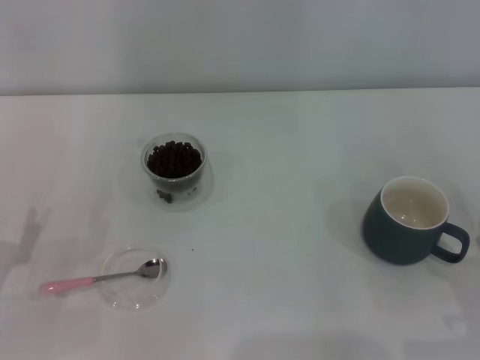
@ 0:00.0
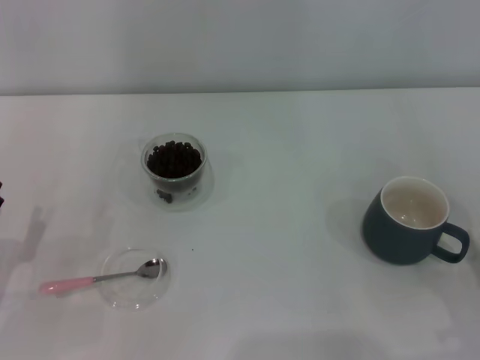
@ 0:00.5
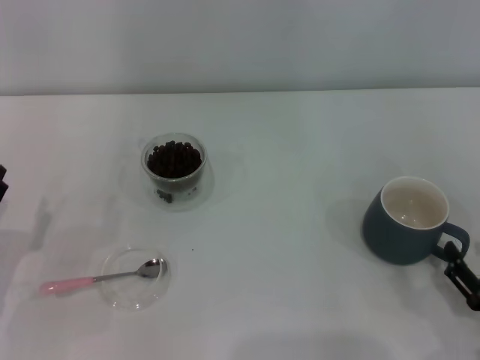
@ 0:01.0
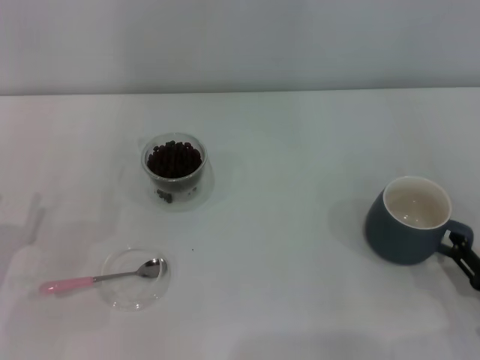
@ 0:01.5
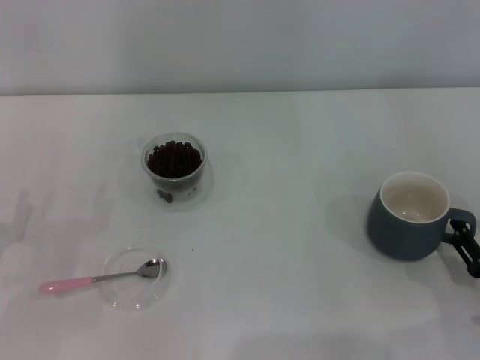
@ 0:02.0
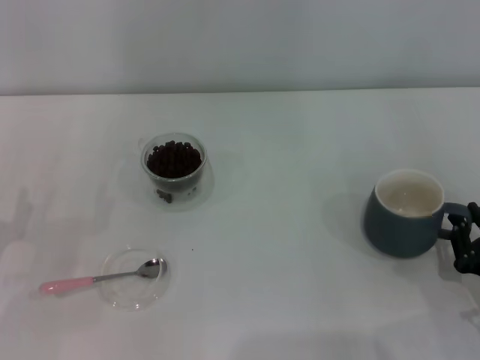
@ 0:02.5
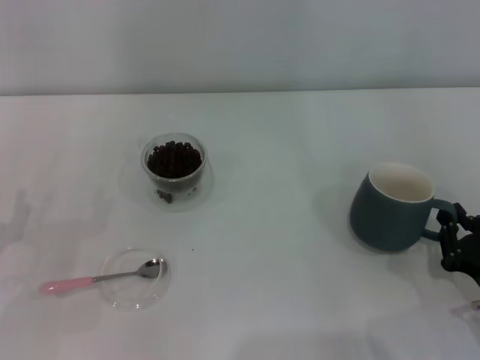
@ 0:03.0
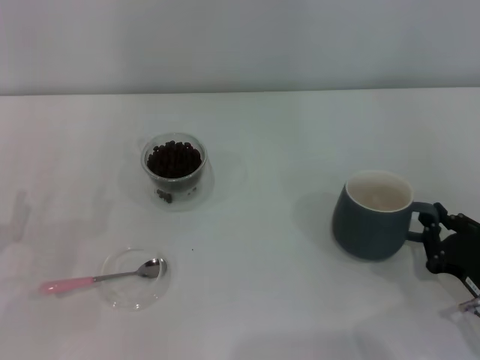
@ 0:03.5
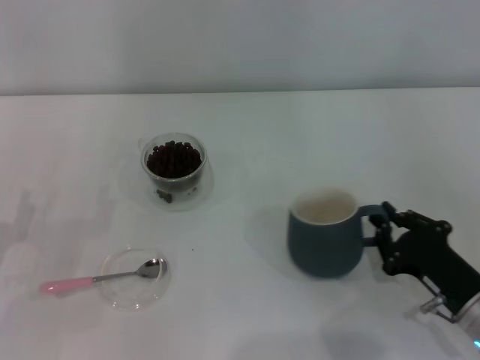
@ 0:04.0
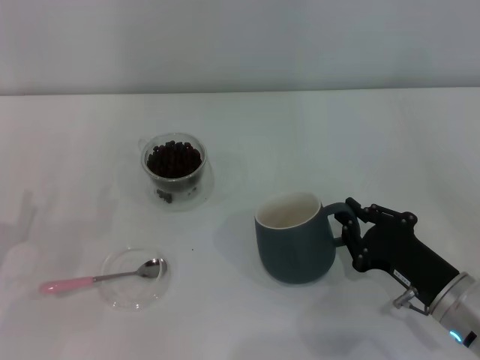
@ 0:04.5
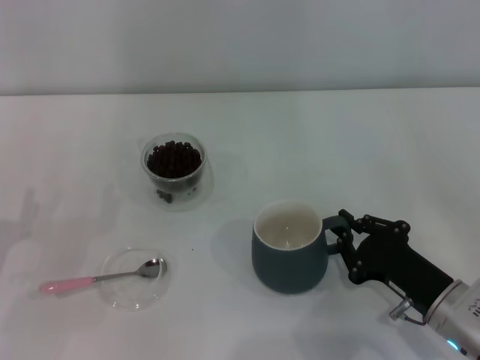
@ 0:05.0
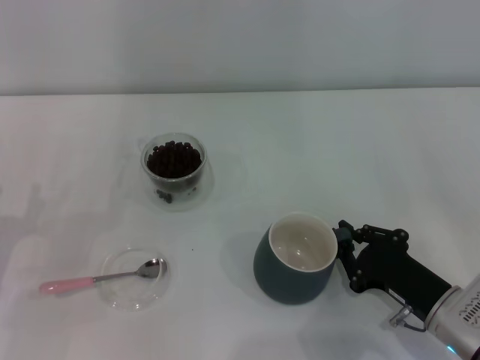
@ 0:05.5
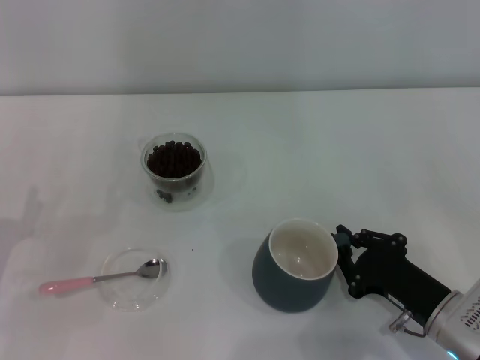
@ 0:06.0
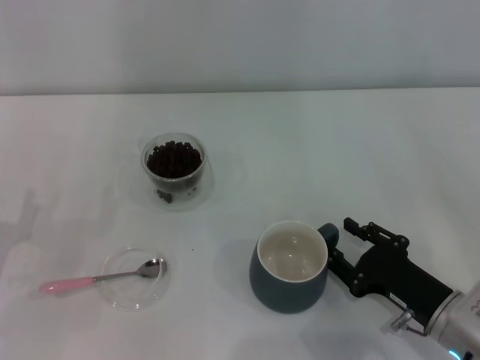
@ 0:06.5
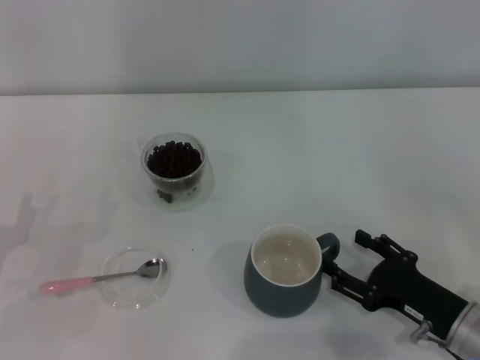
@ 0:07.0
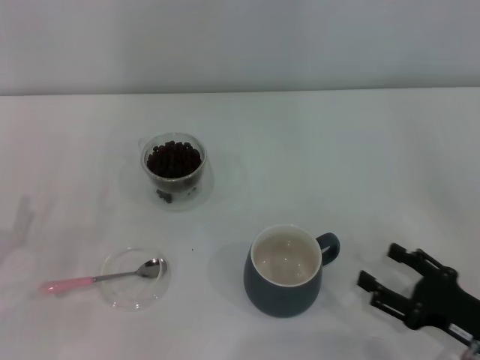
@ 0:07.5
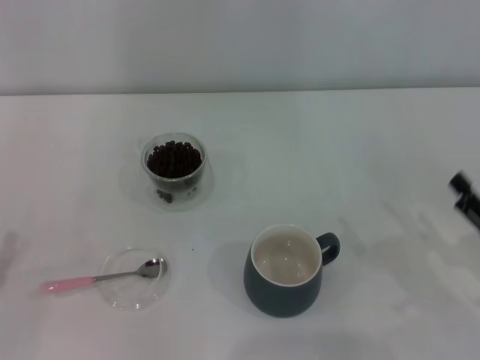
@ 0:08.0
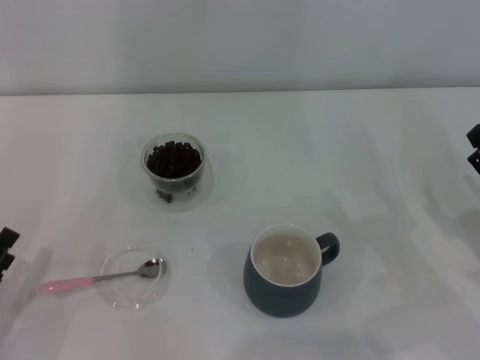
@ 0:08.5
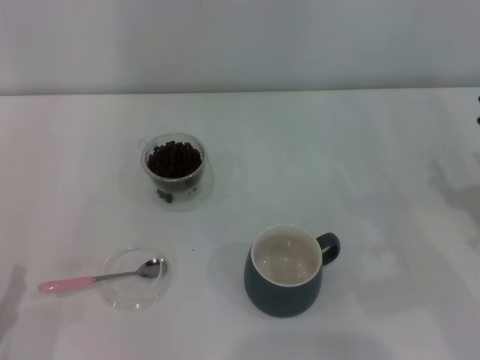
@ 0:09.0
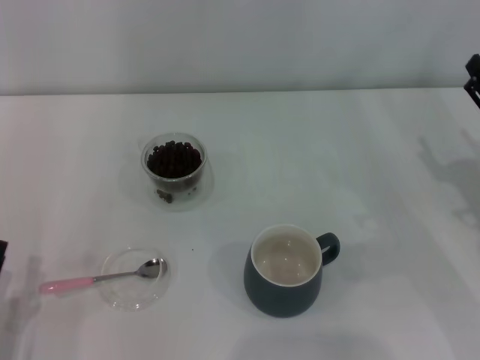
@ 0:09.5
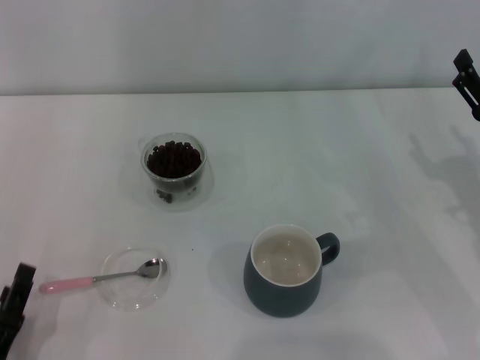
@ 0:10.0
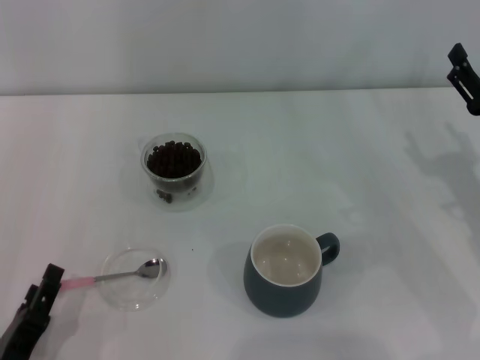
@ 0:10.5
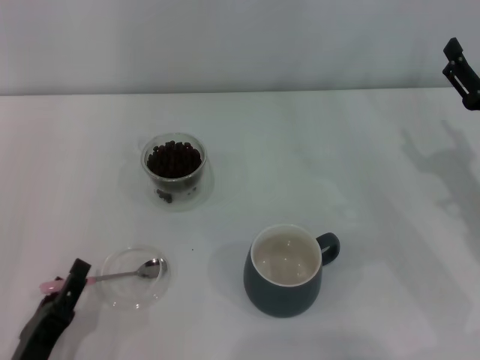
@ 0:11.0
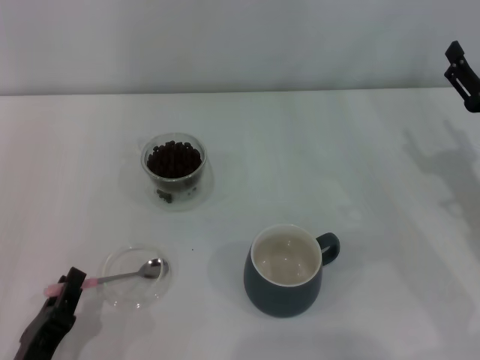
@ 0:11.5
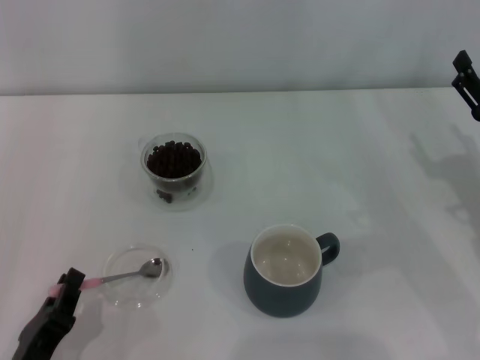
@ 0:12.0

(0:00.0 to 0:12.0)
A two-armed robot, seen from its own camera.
Task of the whole recording: Use a pink spoon to take out the coffee beans from the glass and pour them into the gray cup.
Step, 0:00.0 - 0:07.0: Move the cup to the center of view with the left gripper.
0:00.0 - 0:02.0: The grippers move only a little.
0:02.0 - 0:04.0: The right gripper heads to the left, covering some 5 cm, and closes.
0:04.0 - 0:06.0: The grippers move only a little.
0:06.0 - 0:08.0: The left gripper is displaced backward by some 5 cm; the right gripper moves to the right, roughly 10 cm, and opens up.
0:08.0 - 0:10.0: The left gripper goes some 10 cm to the right and backward. Meanwhile the right gripper heads forward, covering roughly 10 cm.
0:10.0 - 0:12.0: The left gripper closes.

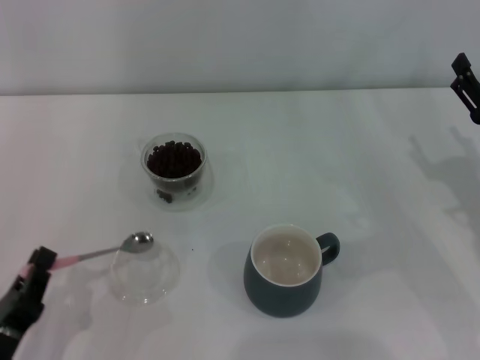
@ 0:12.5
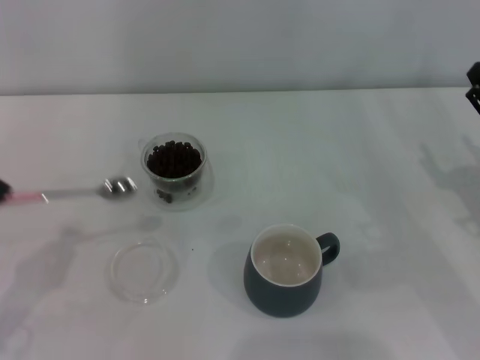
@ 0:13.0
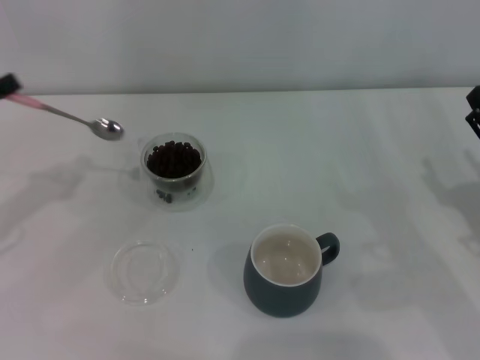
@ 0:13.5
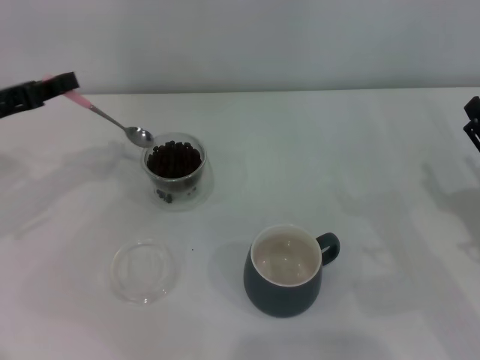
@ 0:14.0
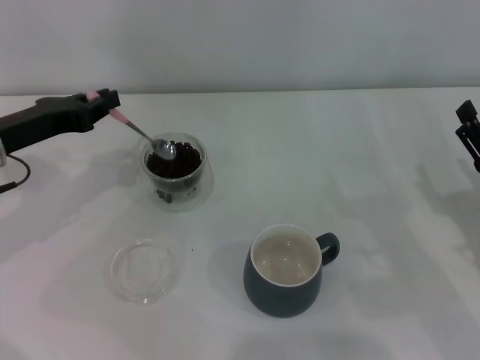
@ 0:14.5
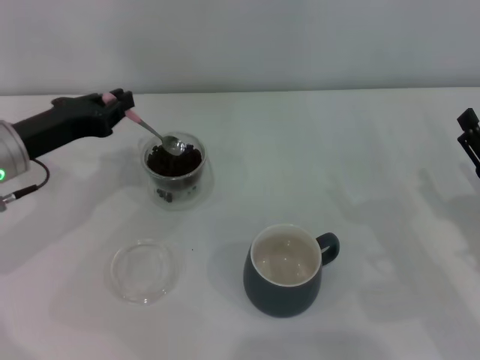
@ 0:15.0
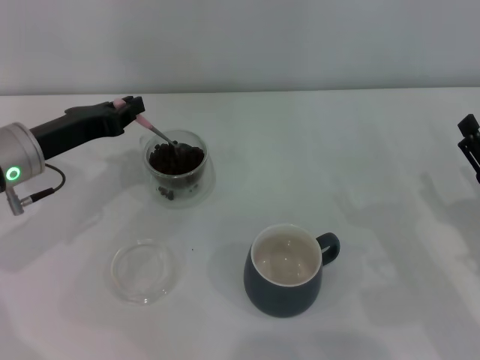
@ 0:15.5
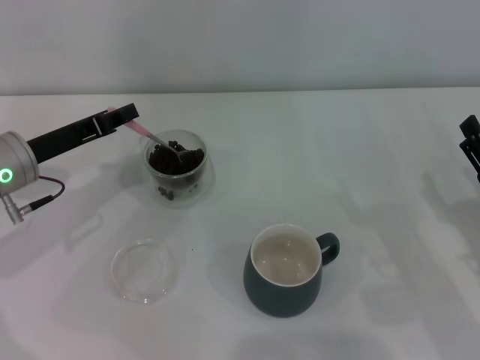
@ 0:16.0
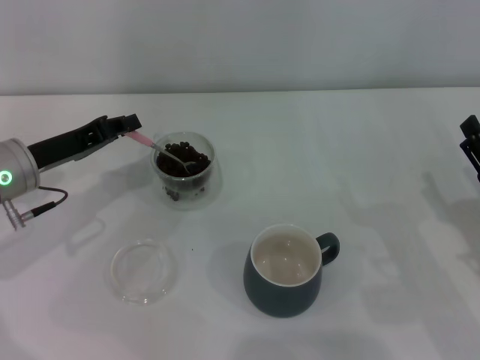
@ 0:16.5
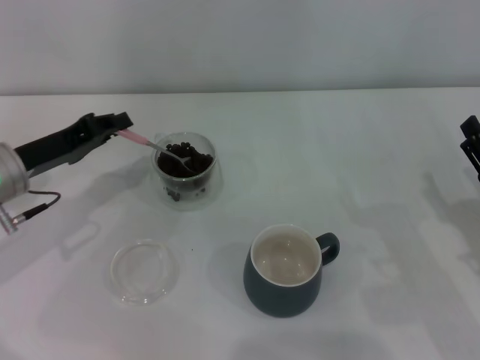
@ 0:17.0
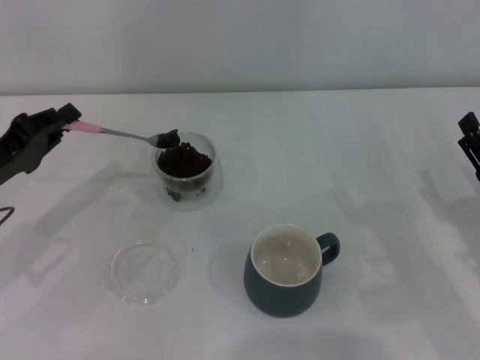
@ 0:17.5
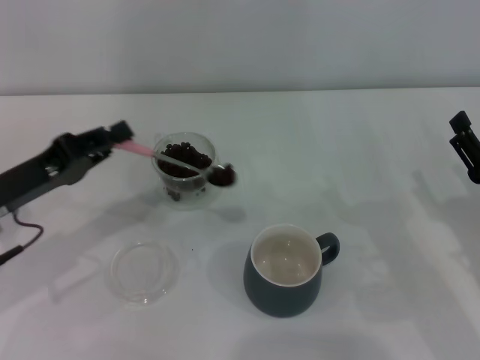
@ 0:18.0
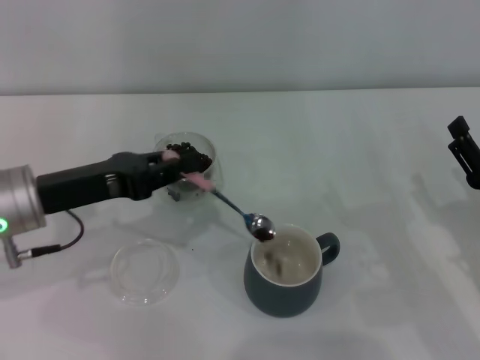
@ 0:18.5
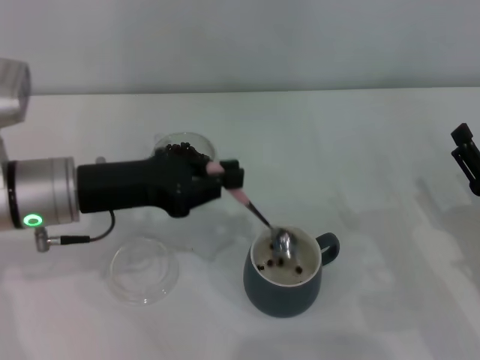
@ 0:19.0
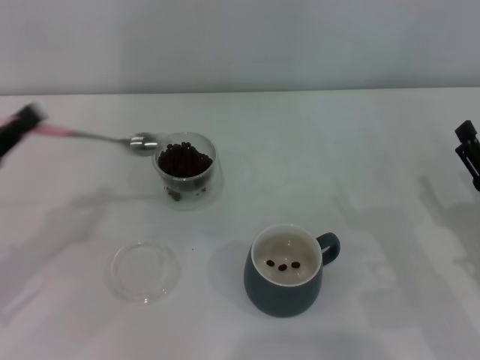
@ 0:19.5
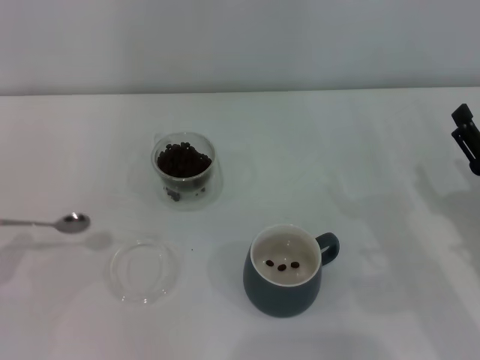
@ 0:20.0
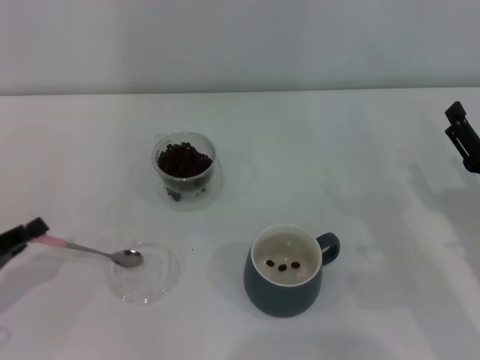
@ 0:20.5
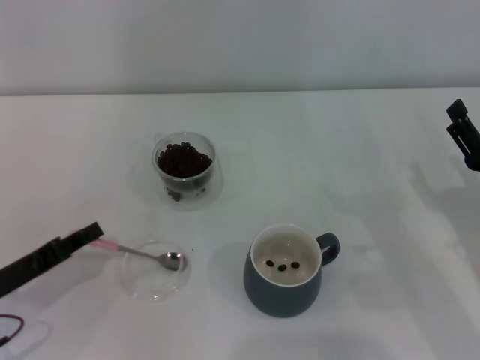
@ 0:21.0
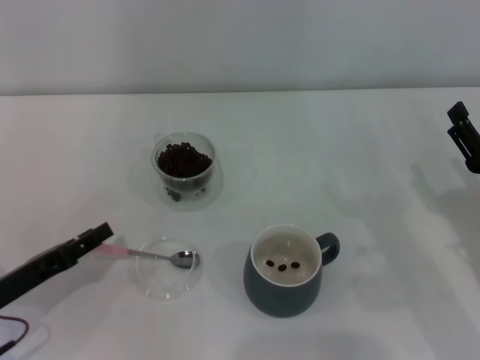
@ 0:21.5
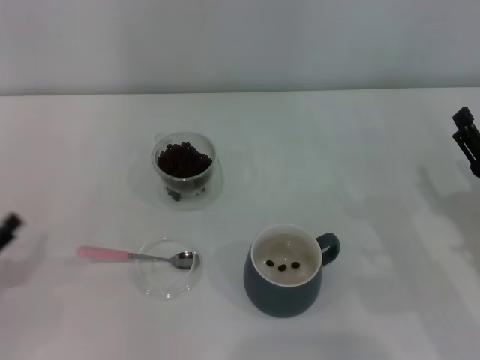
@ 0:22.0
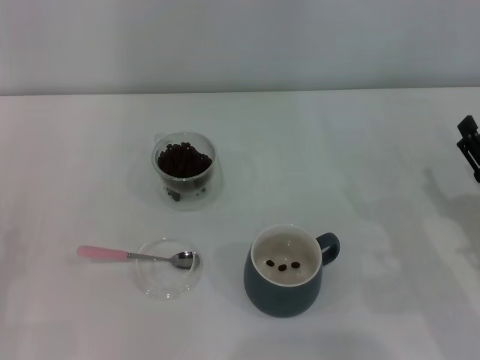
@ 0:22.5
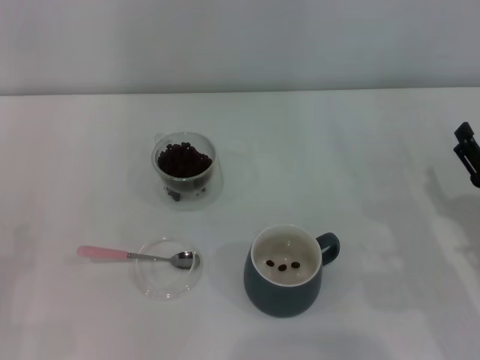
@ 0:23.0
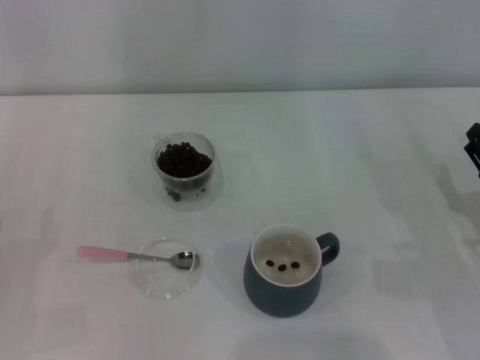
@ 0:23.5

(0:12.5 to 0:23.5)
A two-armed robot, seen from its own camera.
Task of the whole recording: Use a pink spoon to take out the coffee beans from the glass and pour them into the gray cup.
0:12.5 - 0:14.5: The right gripper shifts by some 5 cm; the left gripper shifts some 25 cm forward and upward.
0:14.5 - 0:16.0: The grippers make only small movements.
0:16.0 - 0:18.0: The left gripper moves backward, about 5 cm.
0:18.0 - 0:20.0: The left gripper heads to the left and backward, covering about 15 cm.
0:20.0 - 0:21.5: The left gripper heads to the right, covering approximately 10 cm.
0:21.5 - 0:23.5: The left gripper heads to the left, covering about 5 cm, and opens its fingers.
